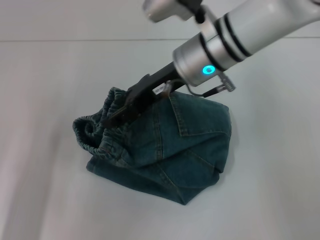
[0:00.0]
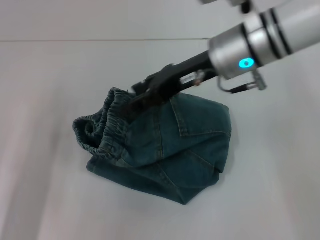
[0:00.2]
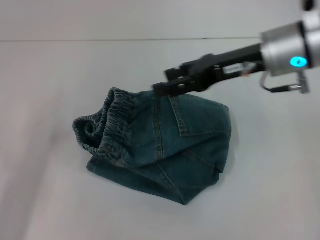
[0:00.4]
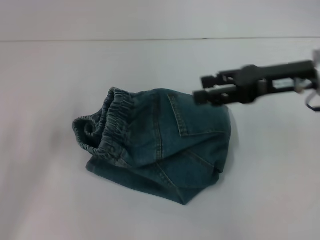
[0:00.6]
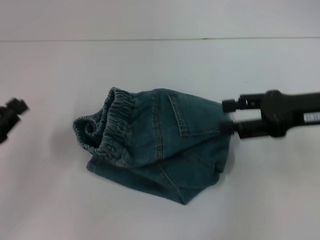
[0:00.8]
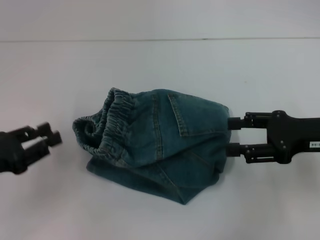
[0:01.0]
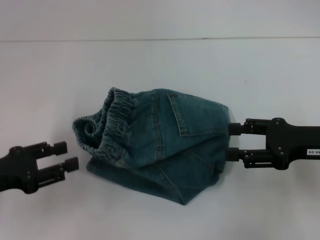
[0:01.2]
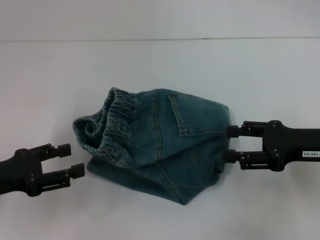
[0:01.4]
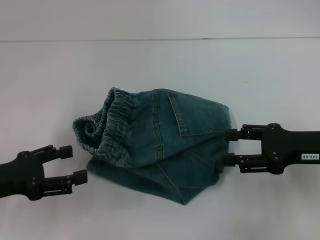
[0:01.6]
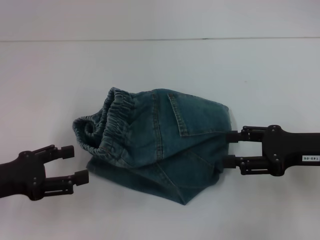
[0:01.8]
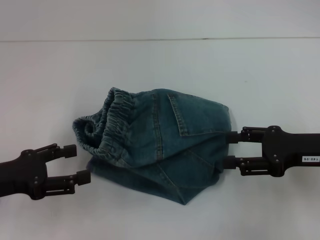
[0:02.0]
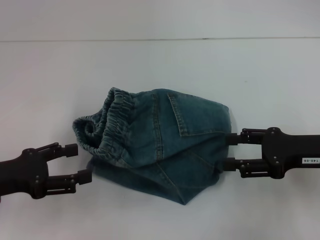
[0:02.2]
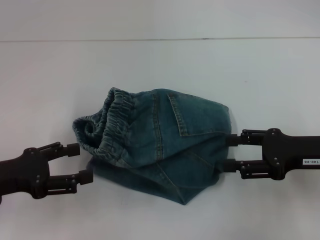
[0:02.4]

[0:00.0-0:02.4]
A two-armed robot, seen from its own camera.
0:00.0 to 0:01.2: The left gripper moves upward, some 5 cm, and opens its fingers. Meanwhile the right gripper shifts roughly 25 cm to the right and backward.
0:01.2 to 0:02.4: The left gripper opens.
